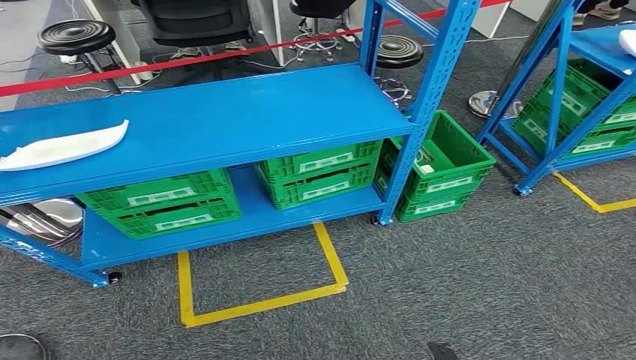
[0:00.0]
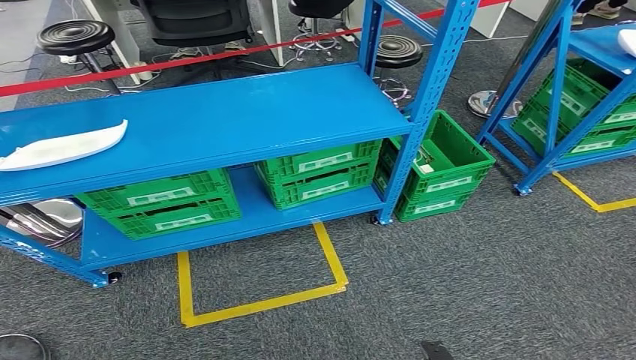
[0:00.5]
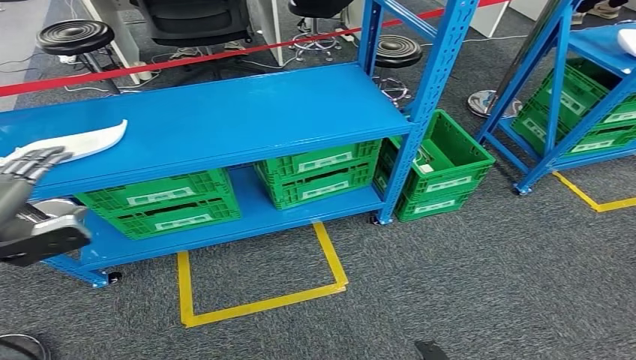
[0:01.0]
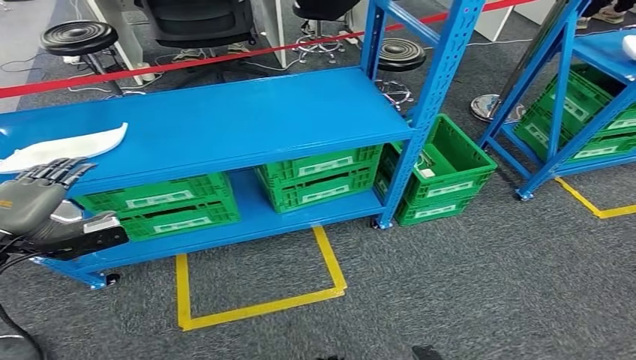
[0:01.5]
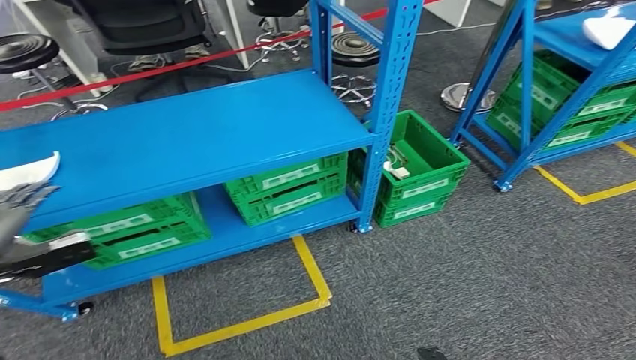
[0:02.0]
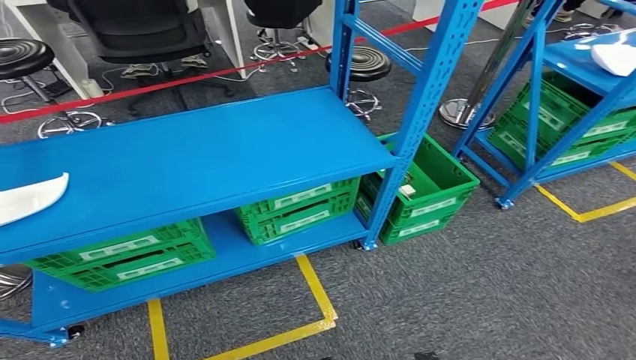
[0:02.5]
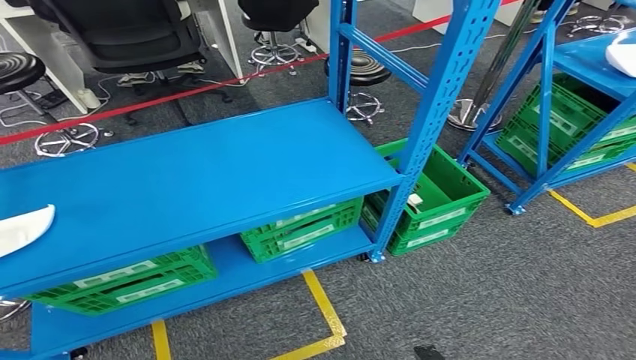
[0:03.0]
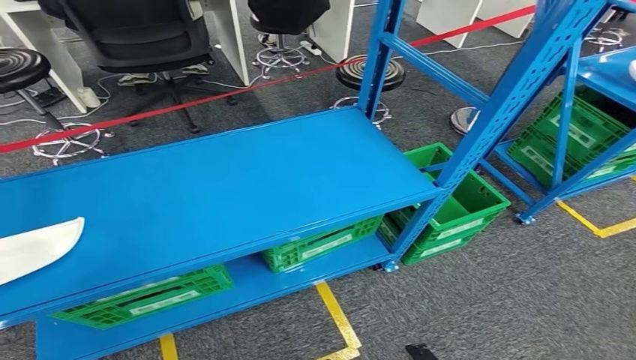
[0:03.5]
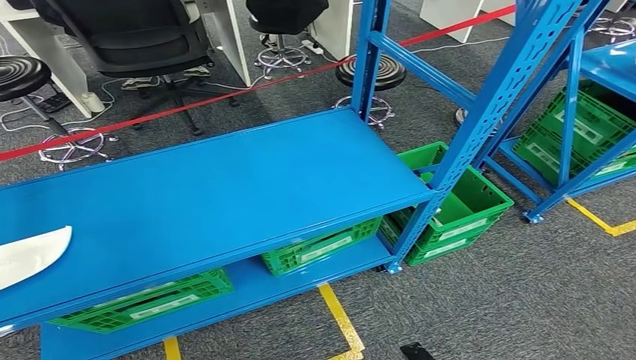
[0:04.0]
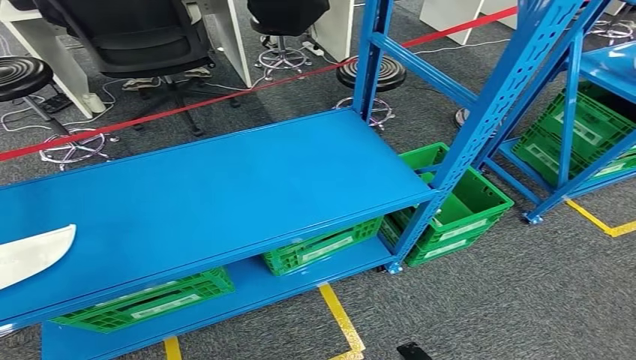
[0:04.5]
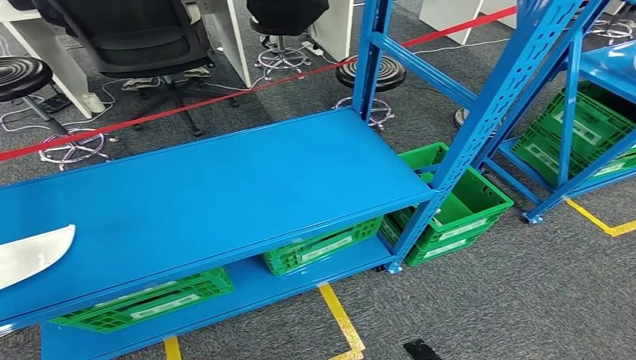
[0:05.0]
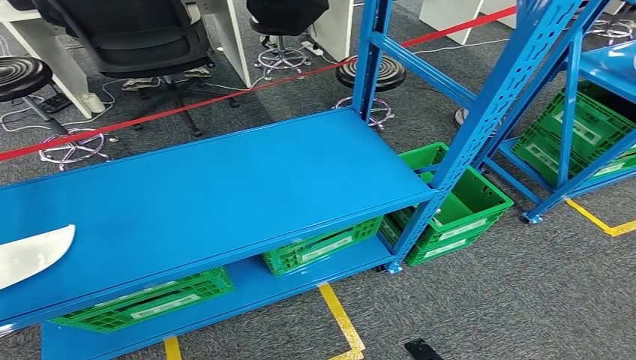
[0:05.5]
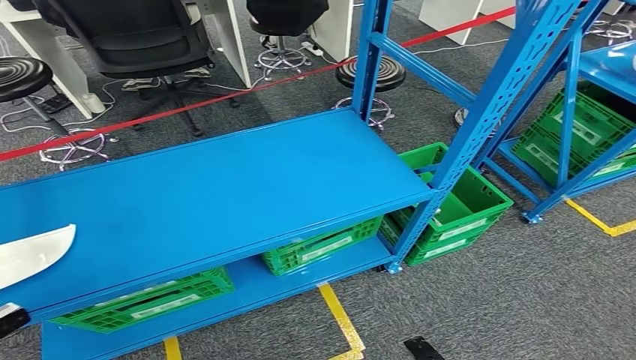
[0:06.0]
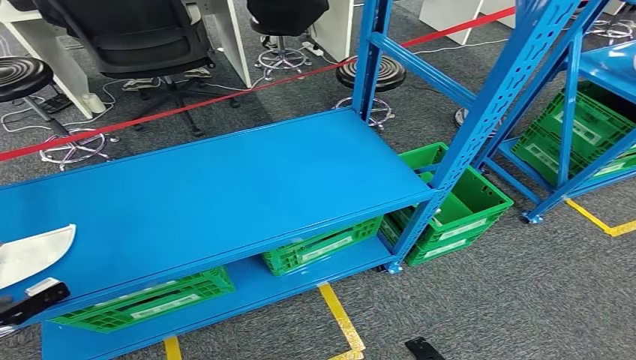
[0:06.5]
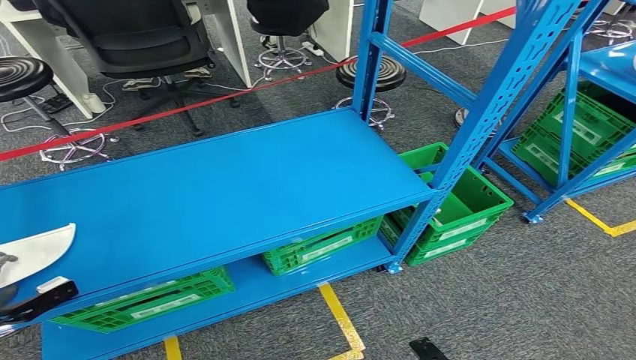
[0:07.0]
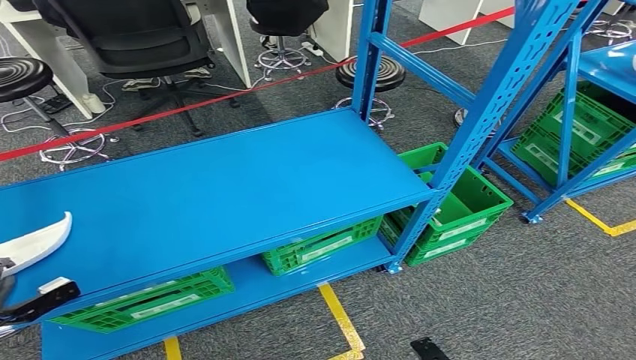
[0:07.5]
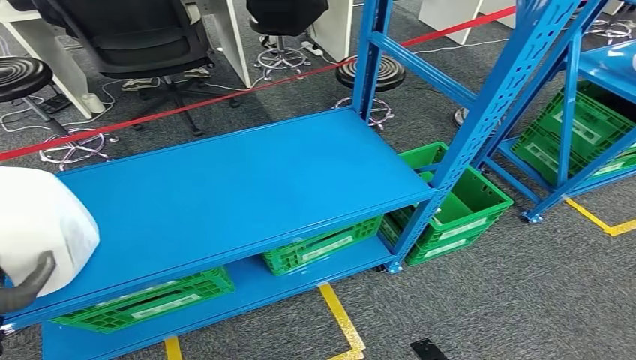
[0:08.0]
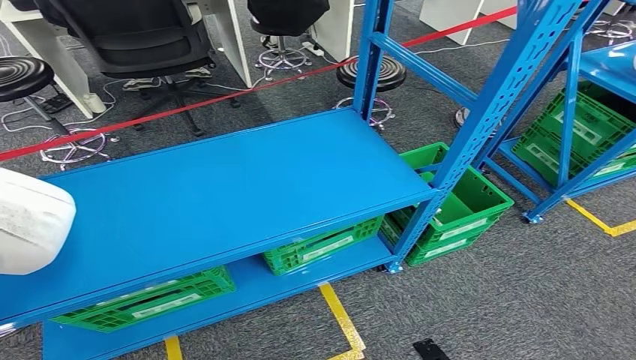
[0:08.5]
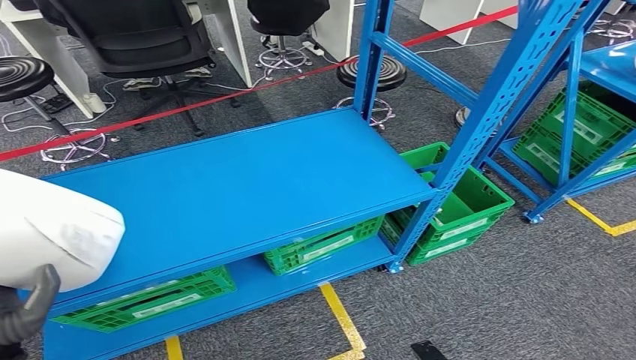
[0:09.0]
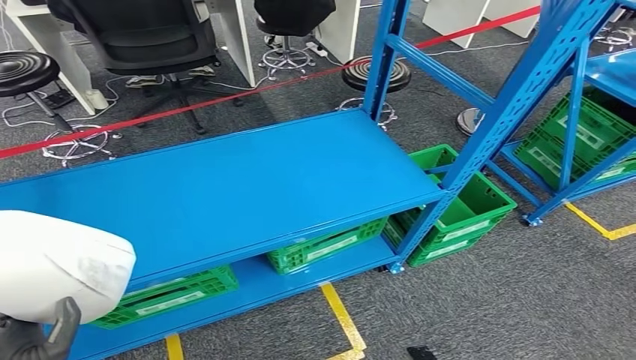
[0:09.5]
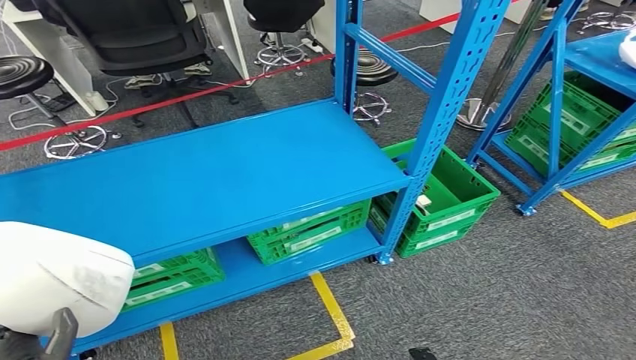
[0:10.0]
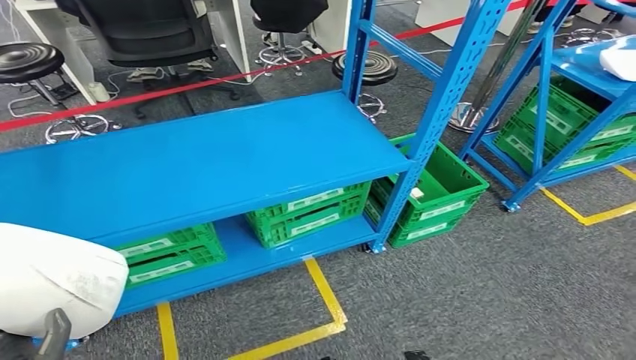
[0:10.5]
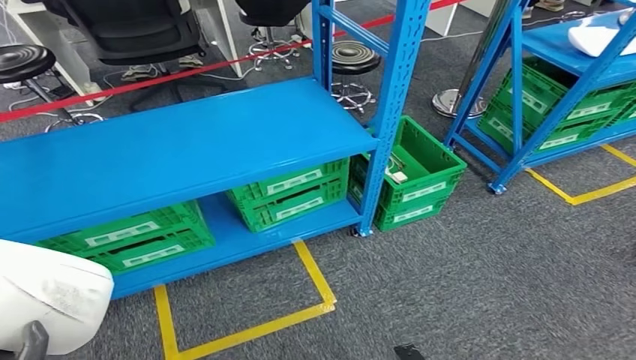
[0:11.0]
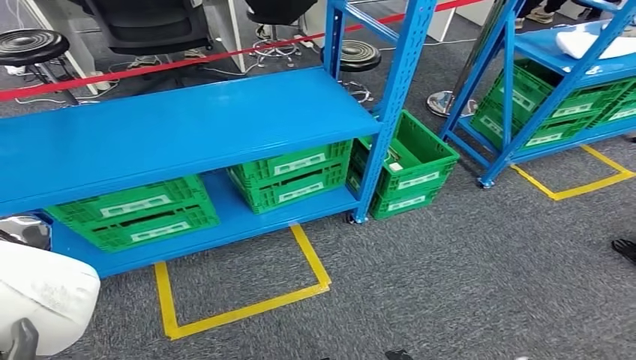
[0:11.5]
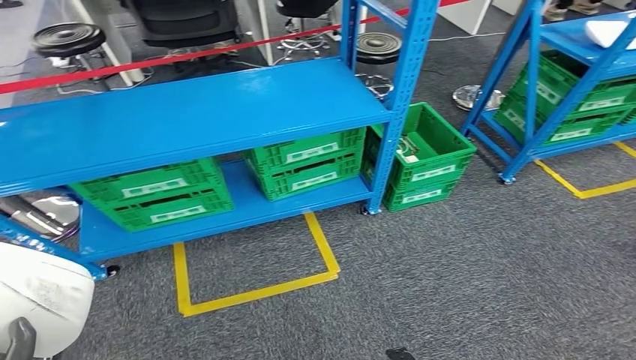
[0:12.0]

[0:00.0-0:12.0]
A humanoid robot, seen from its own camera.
Step, 0:00.0 to 0:09.0: Pick up the small parts from the shelf.
0:04.0 to 0:06.0: The left hand is displaced downward and forward by roughly 10 cm.
0:06.0 to 0:08.0: The left hand travels to the right by roughly 15 cm.

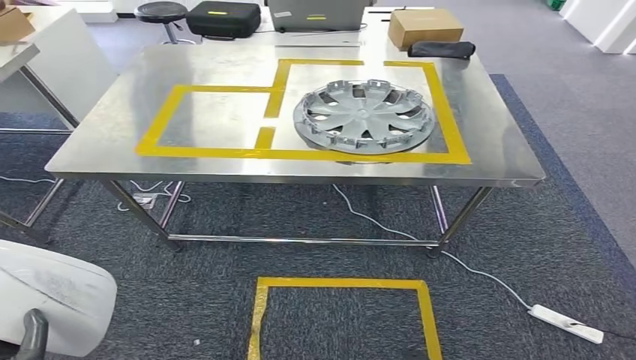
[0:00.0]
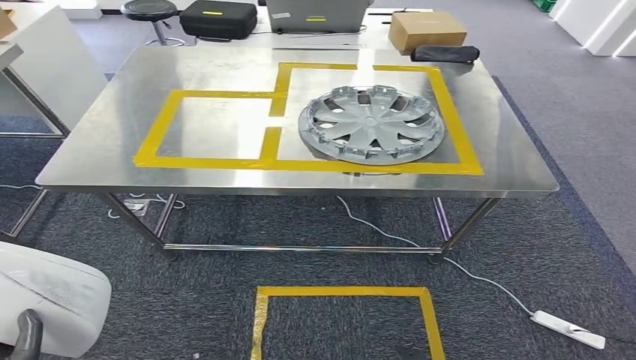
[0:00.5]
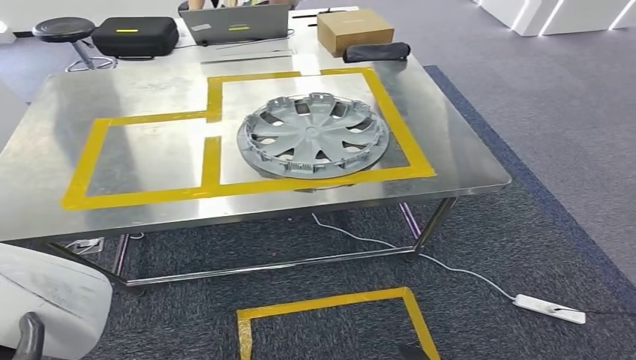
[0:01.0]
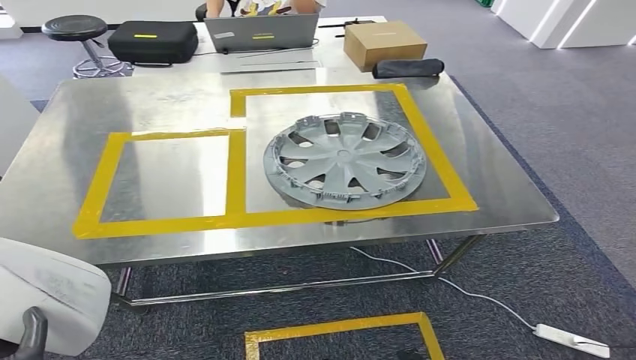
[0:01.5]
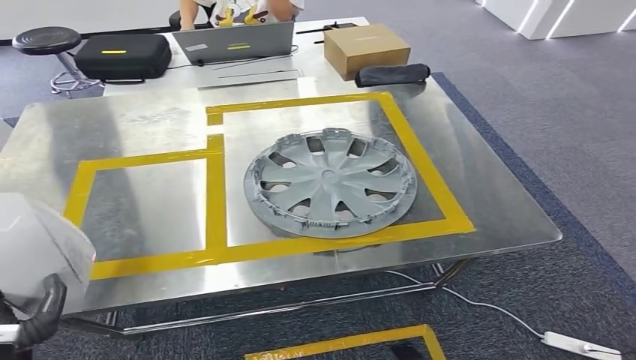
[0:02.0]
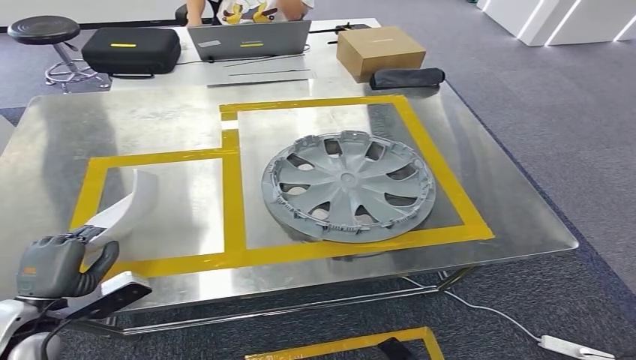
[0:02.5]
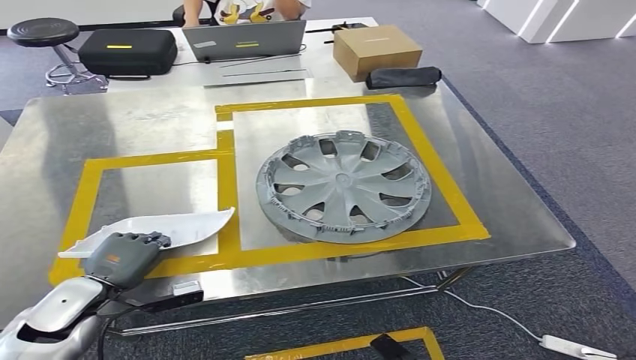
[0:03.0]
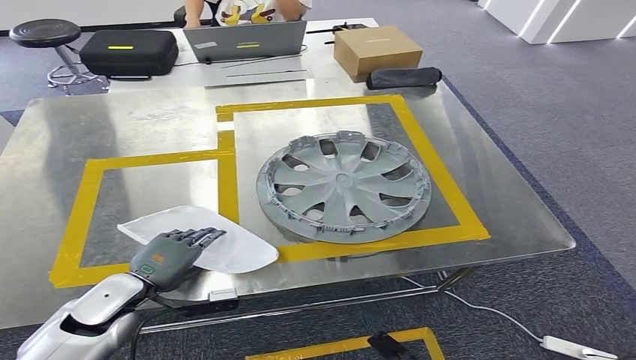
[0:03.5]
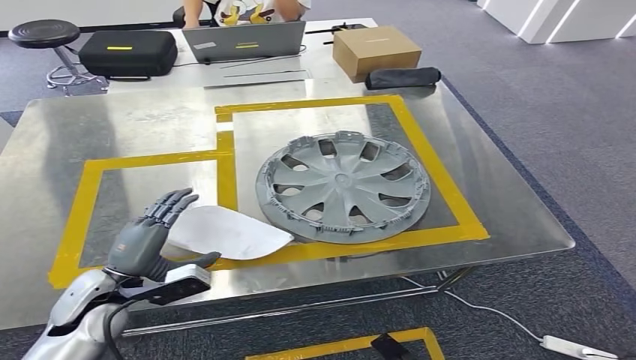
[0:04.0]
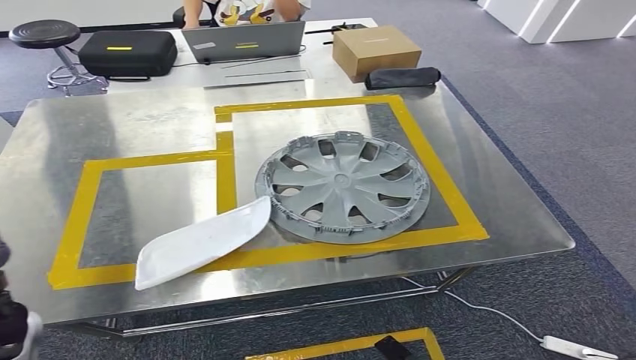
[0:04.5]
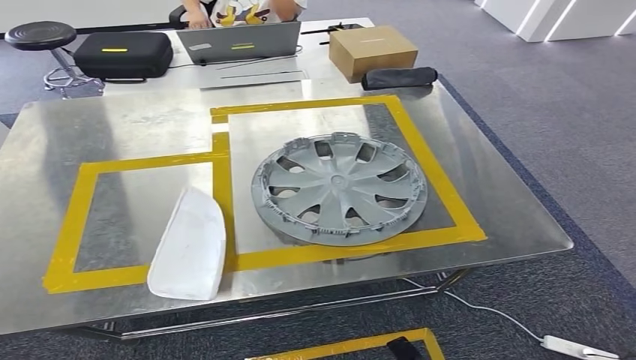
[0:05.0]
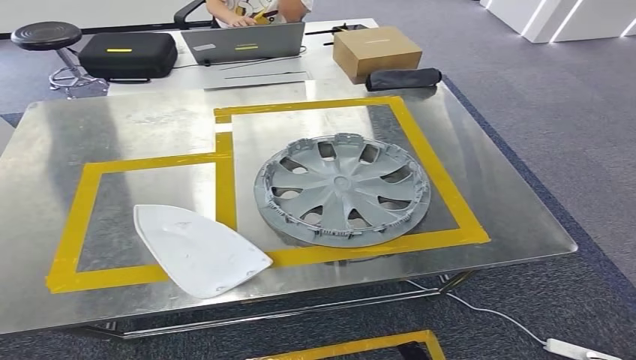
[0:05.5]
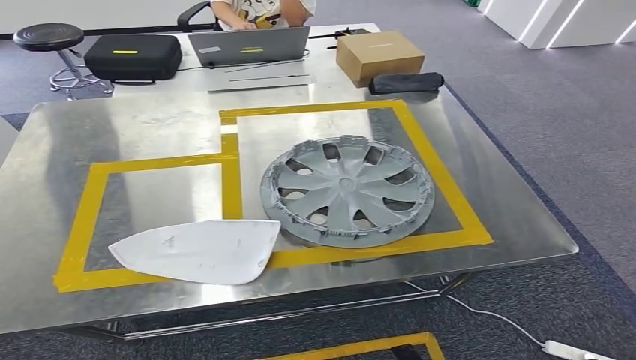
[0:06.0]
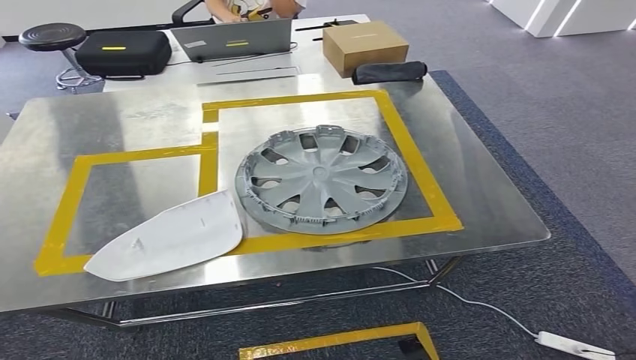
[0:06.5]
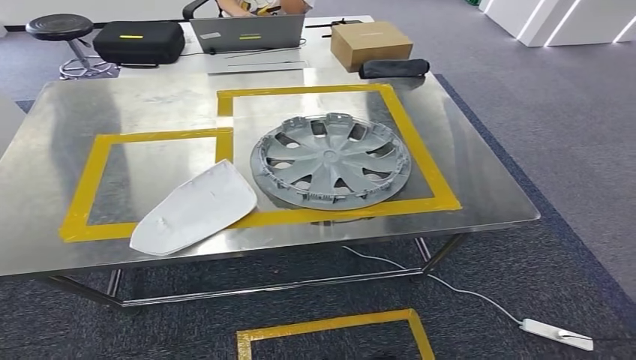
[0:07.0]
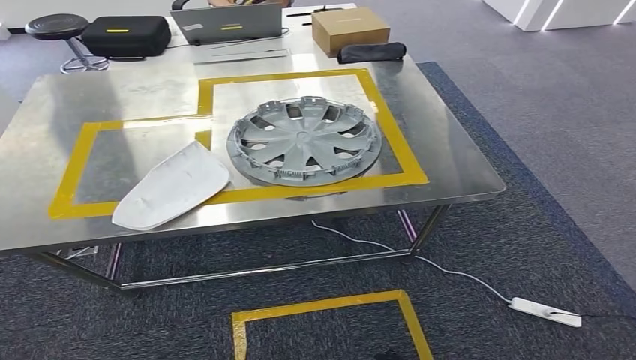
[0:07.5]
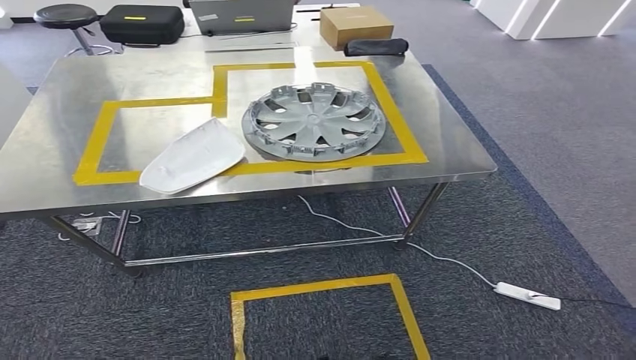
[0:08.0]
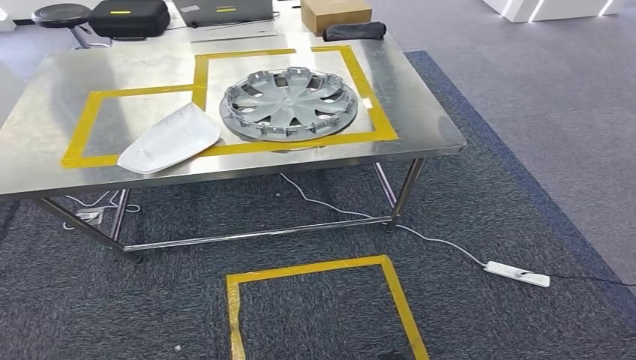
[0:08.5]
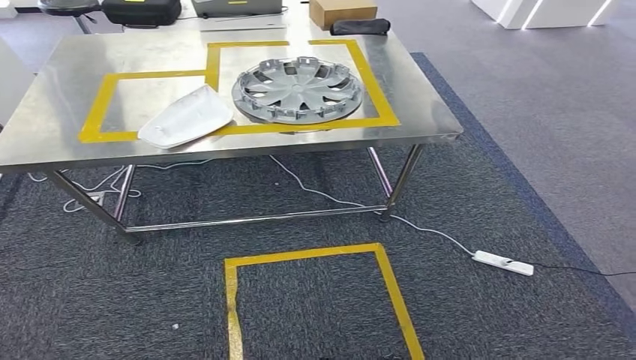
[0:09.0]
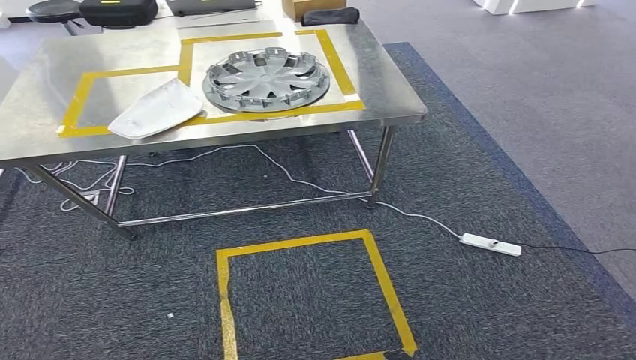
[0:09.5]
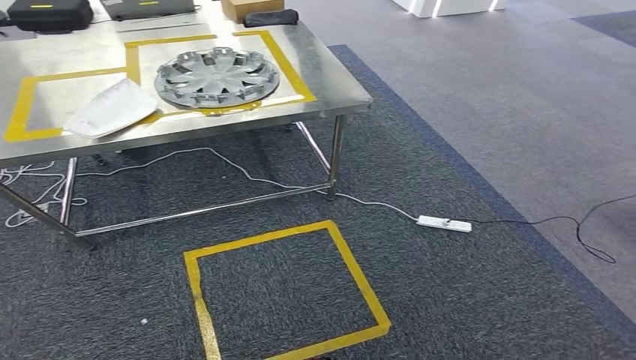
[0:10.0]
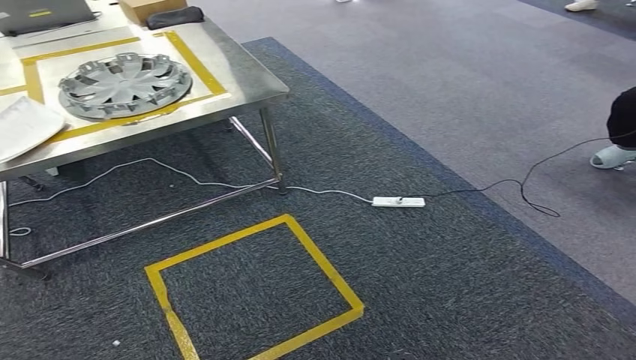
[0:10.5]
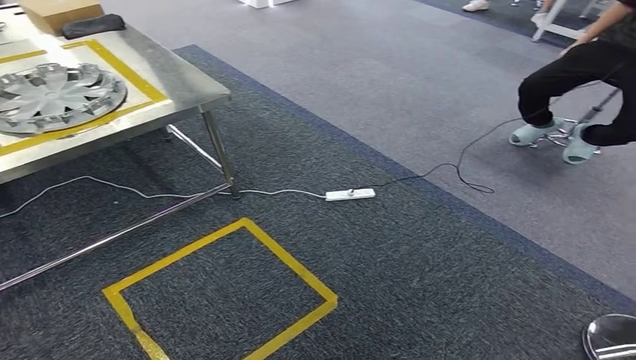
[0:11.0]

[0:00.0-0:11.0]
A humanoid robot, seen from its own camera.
Step, 0:00.0 to 0:02.5: Move the small parts to the workbench.
Step, 0:03.0 to 0:05.5: Insert the small parts into the corresponding holes on the workbench.
0:03.5 to 0:05.5: The left hand shifts roughly 40 cm to the left and backward.
